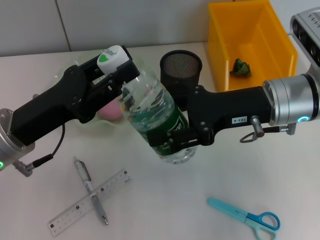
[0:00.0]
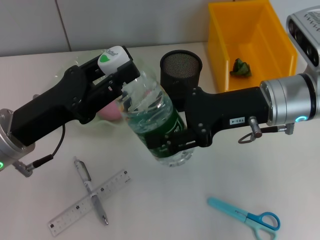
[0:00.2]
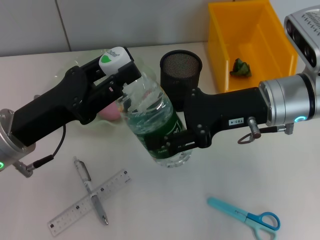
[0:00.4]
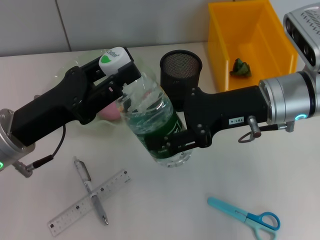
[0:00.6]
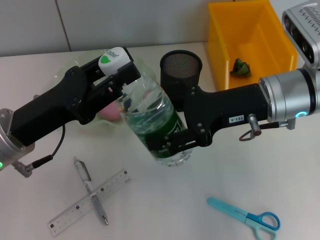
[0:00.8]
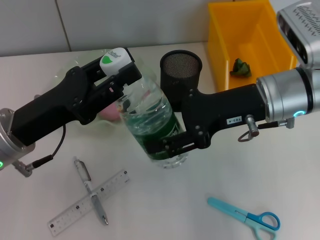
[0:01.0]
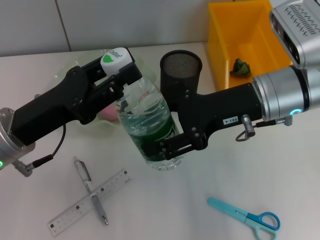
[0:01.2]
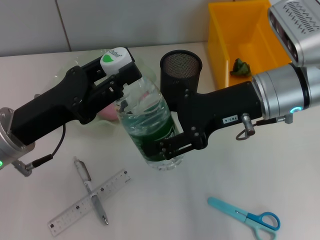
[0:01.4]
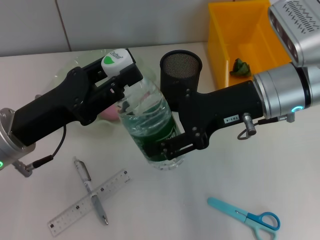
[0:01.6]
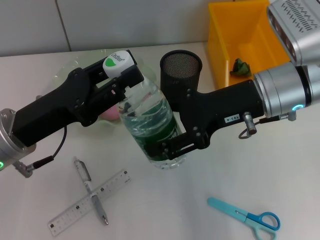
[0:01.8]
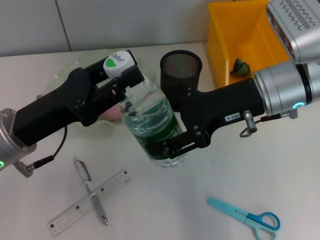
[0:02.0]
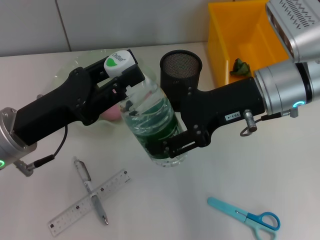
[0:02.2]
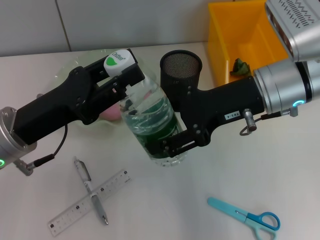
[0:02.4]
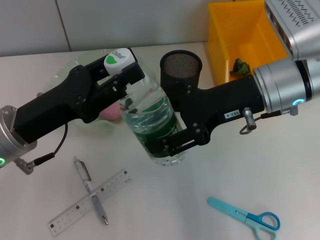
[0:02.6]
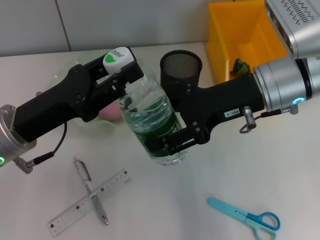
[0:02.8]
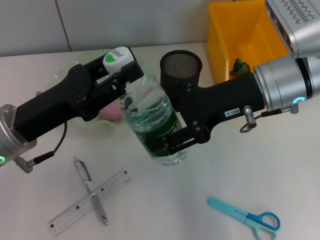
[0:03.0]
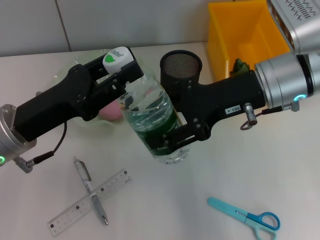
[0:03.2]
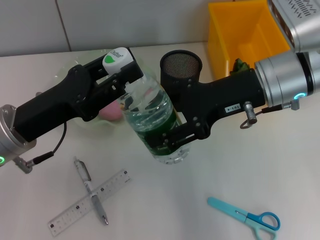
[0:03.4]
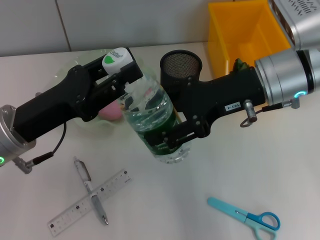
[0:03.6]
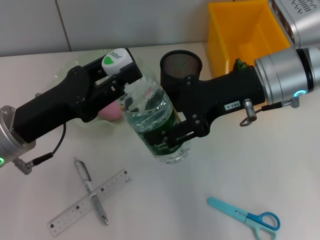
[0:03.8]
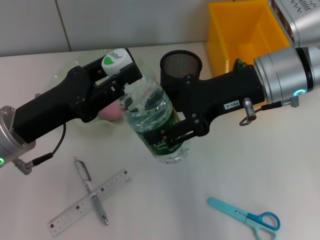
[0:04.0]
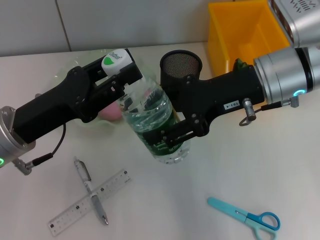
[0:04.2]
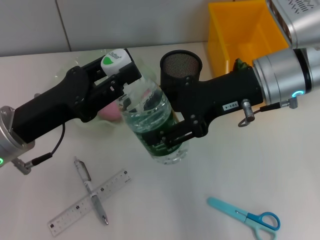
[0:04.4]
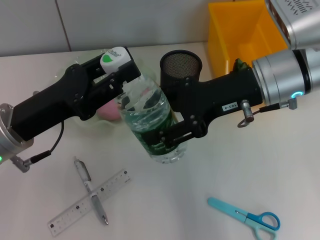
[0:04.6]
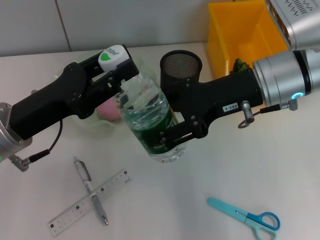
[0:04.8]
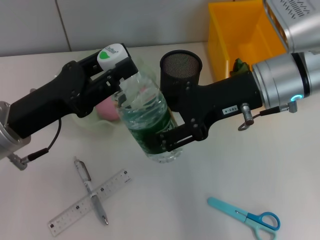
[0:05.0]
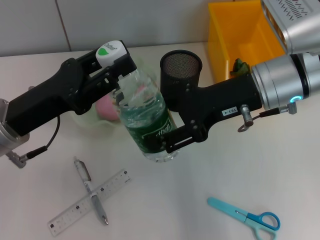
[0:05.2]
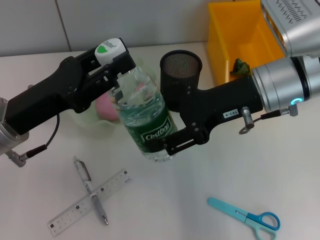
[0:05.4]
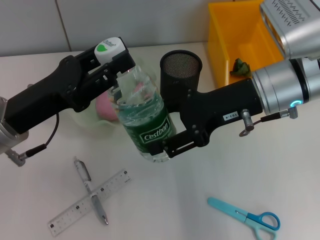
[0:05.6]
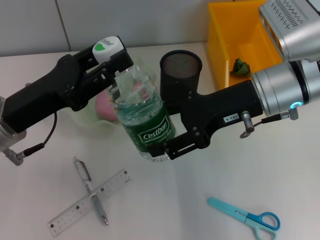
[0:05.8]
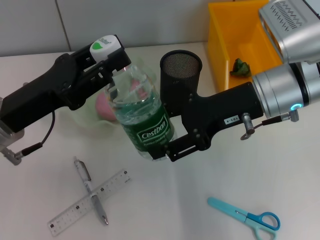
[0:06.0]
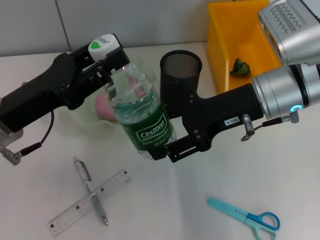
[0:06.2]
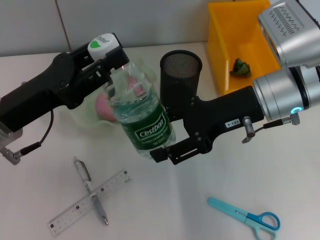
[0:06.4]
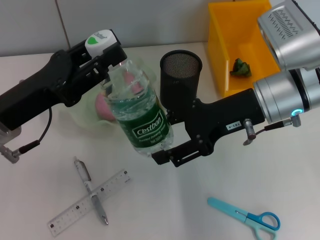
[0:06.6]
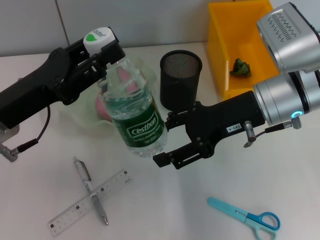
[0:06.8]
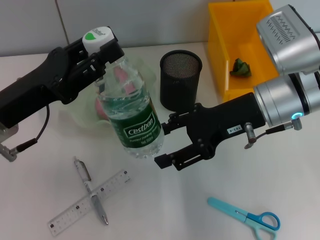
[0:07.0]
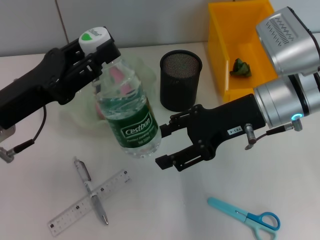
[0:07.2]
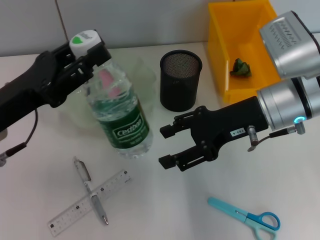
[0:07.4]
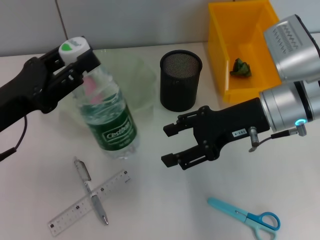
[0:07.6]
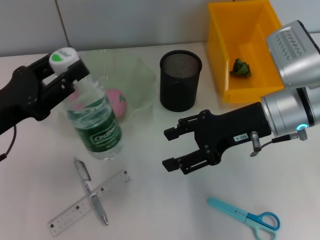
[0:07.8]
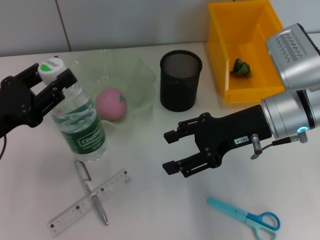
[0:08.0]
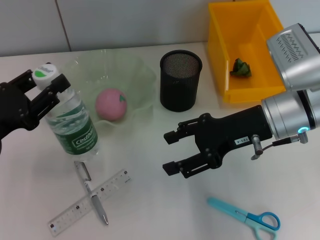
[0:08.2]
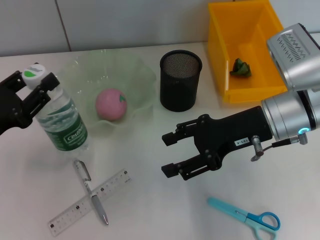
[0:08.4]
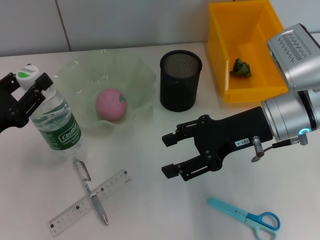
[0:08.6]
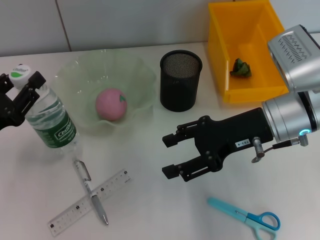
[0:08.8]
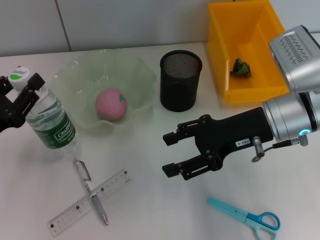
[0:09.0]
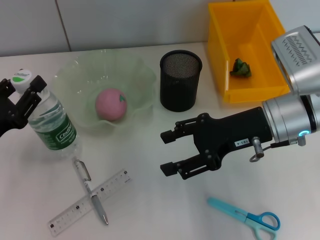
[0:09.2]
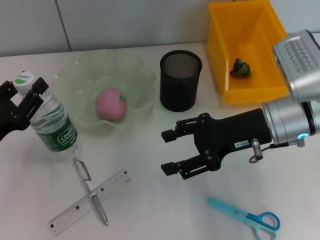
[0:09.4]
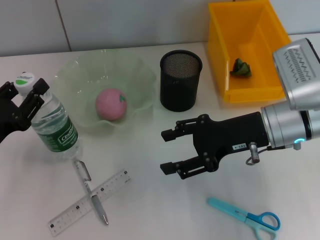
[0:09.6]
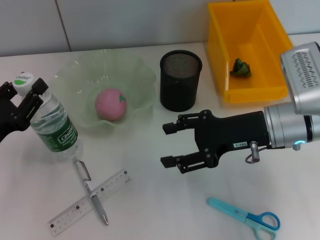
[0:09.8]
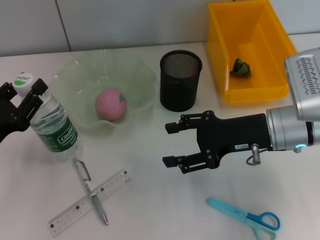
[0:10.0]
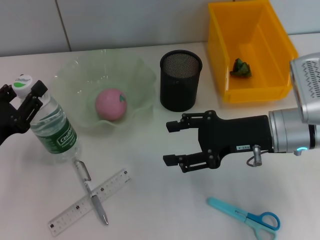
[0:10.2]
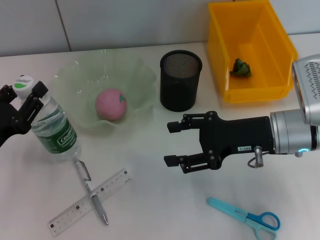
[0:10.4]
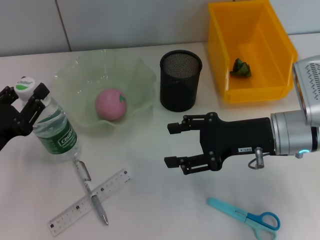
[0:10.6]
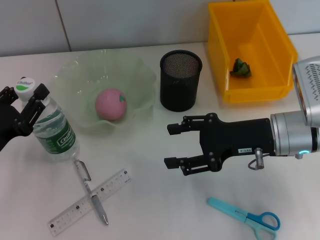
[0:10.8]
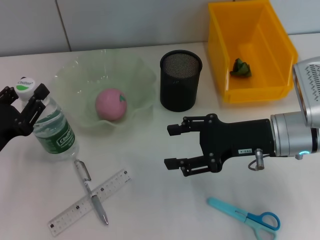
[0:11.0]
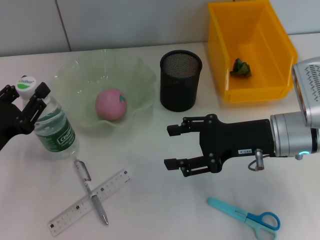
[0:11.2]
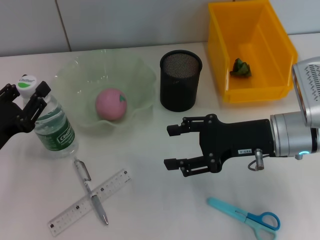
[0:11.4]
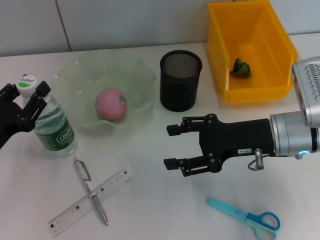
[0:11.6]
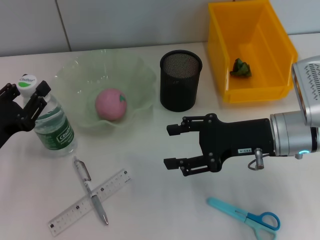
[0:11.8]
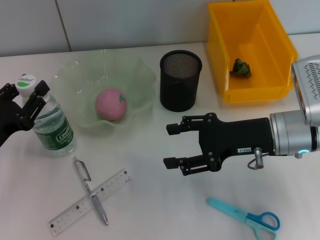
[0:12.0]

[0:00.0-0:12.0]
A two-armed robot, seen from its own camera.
Step, 0:00.0 to 0:07.0: Pass the water bottle from the right hand to the left hand.
0:00.0 to 0:01.6: The grippers make only small movements.
0:01.6 to 0:03.0: Neither gripper changes place.
0:03.0 to 0:04.4: Neither gripper changes place.
0:07.6 to 0:09.0: The left gripper heads downward, covering roughly 5 cm.
0:09.0 to 0:10.4: The grippers stay close to where they were, moving slightly.
0:10.4 to 0:12.0: Both grippers stay put.

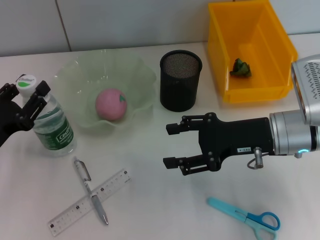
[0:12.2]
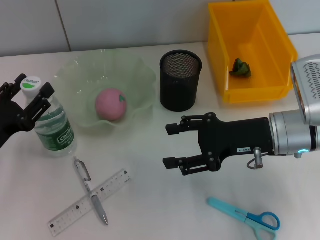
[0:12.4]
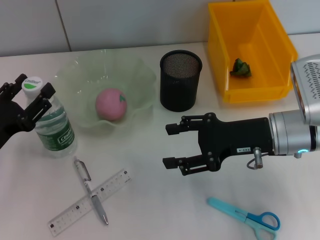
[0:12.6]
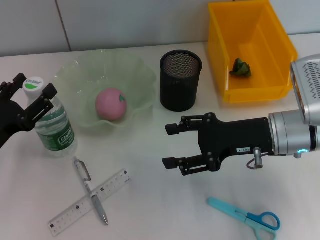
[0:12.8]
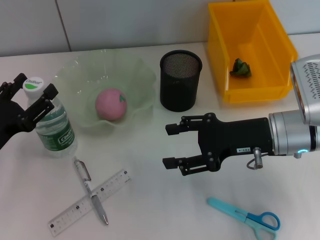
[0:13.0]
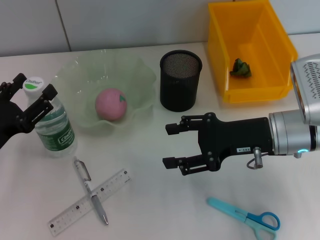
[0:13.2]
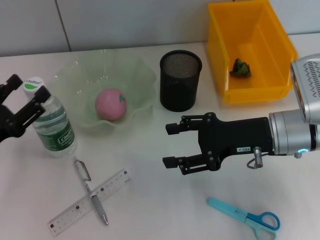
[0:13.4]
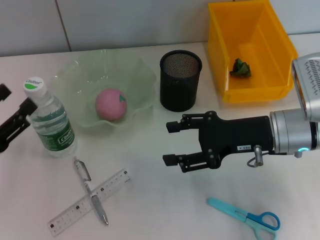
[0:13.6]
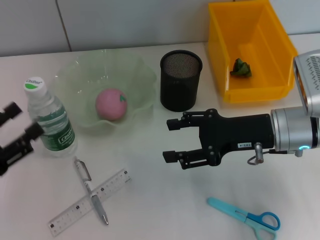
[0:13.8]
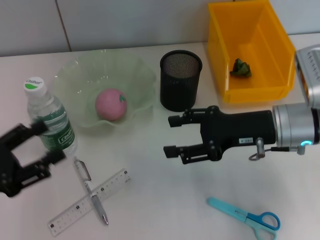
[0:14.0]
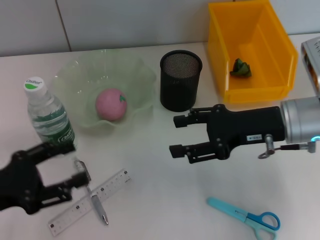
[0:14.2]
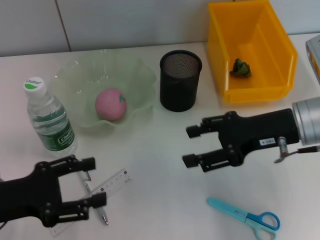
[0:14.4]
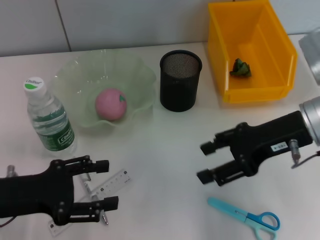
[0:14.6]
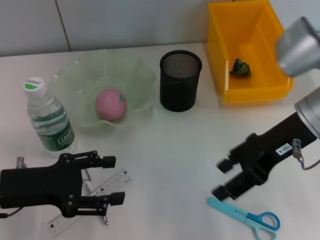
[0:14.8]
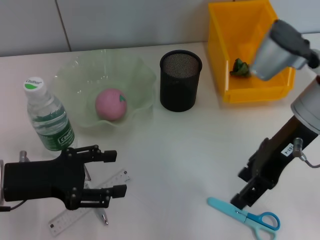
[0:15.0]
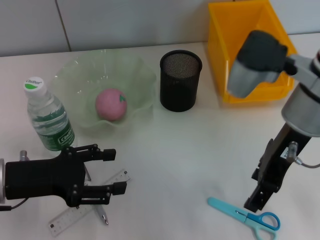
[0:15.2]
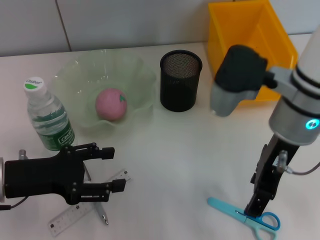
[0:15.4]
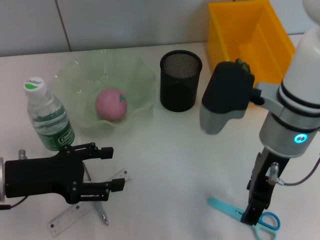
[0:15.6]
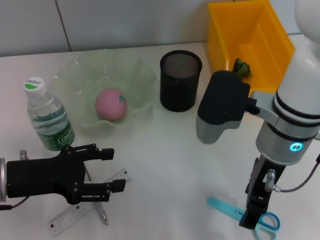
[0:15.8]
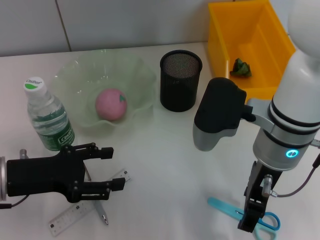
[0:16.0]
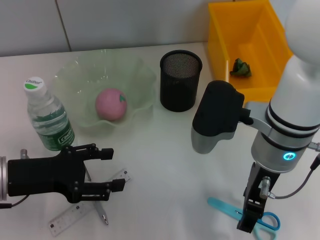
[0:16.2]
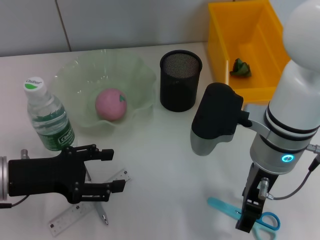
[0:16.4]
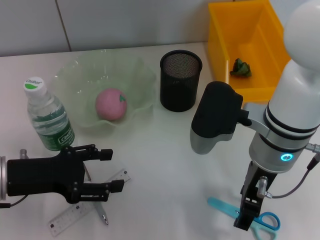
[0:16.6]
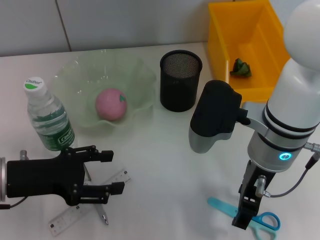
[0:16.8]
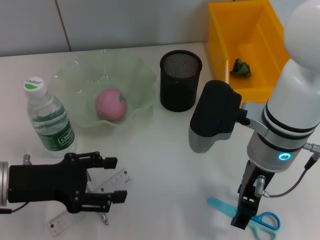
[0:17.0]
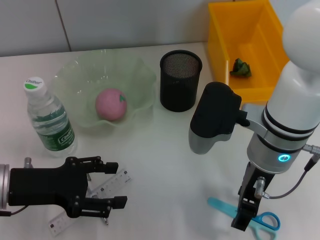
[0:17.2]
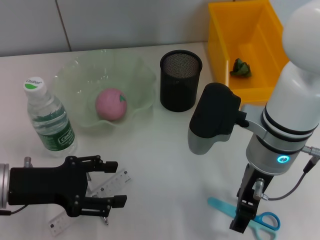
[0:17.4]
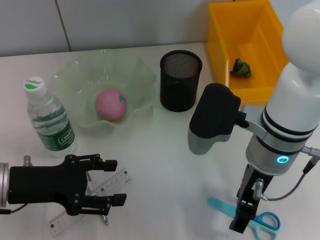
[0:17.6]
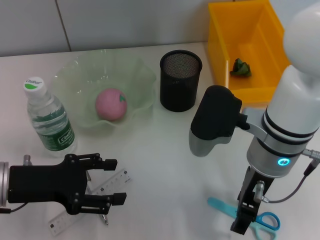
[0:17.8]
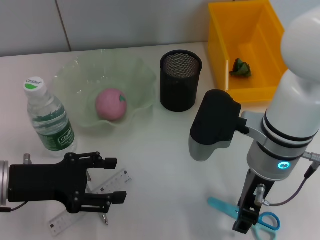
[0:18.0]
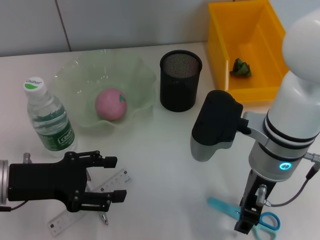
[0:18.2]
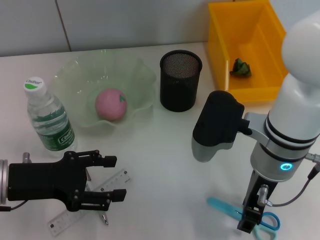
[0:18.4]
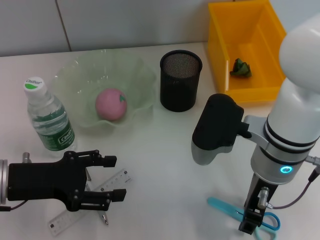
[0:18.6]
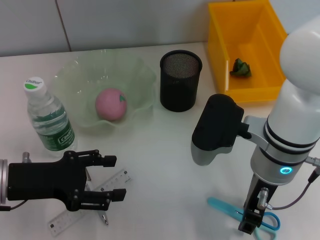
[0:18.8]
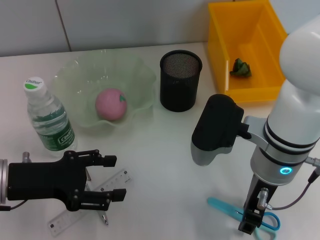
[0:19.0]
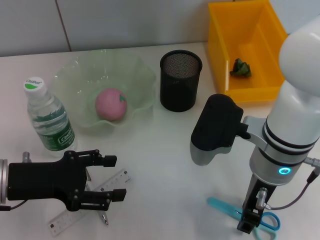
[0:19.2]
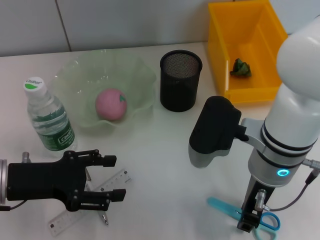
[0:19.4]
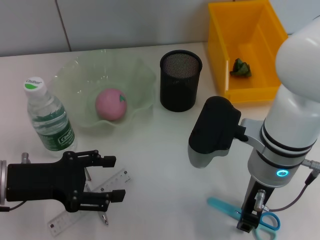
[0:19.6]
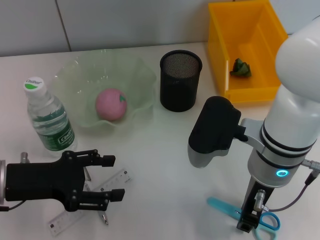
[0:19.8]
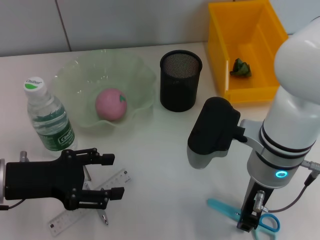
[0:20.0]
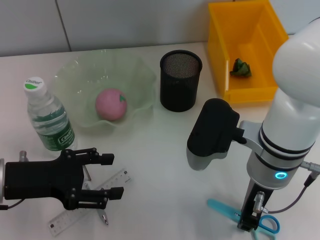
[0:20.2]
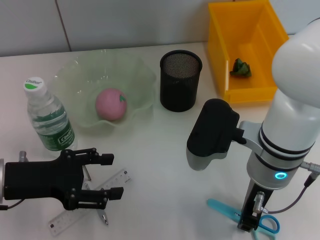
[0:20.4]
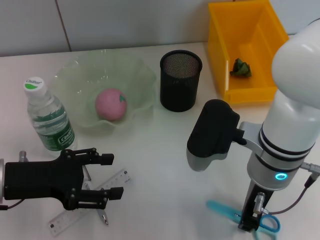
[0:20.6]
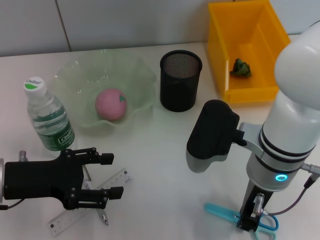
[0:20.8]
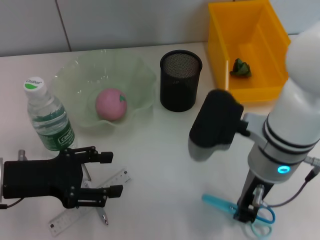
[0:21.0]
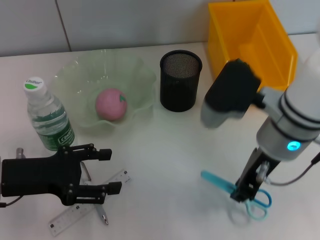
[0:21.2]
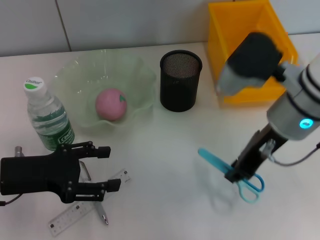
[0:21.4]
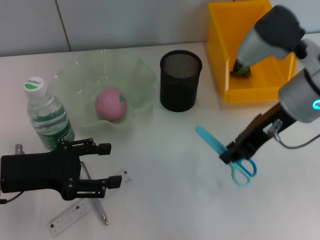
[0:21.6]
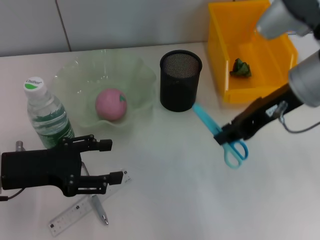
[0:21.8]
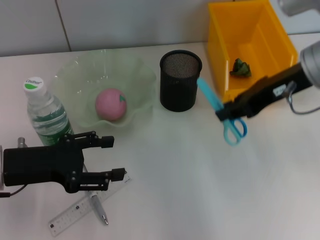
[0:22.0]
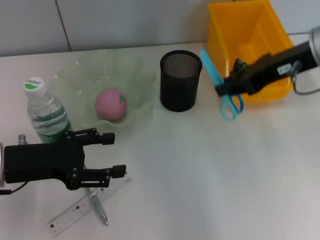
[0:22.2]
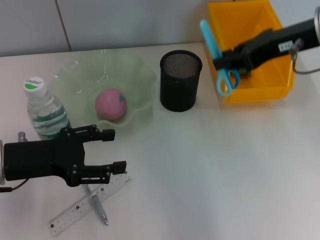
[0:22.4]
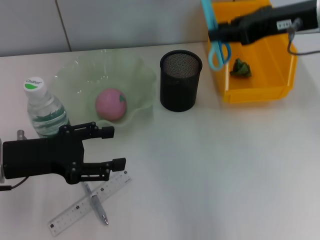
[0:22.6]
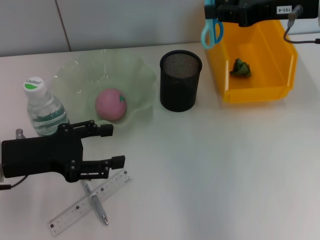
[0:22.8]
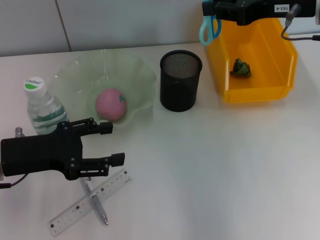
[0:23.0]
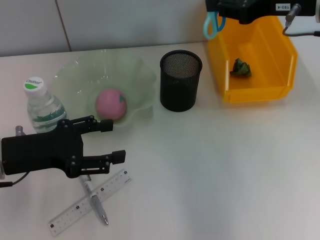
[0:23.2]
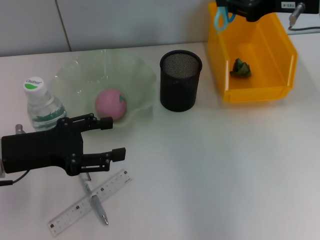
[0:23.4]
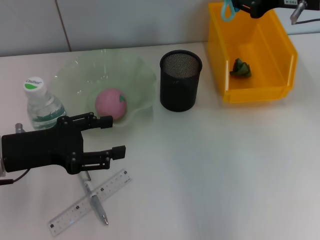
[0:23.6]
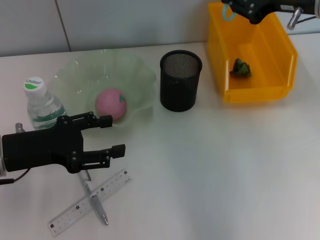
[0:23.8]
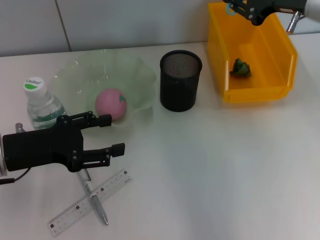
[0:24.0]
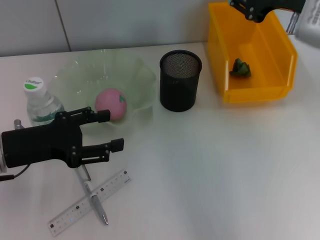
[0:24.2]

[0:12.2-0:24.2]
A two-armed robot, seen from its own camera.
Step, 0:13.0 to 0:20.4: Grab the blue utility knife with the right hand.
0:12.2 to 0:13.8: The left gripper heads backward, covering about 5 cm, and opens its fingers.
0:13.8 to 0:15.2: The left gripper is displaced to the right and forward by some 10 cm. The right gripper goes about 10 cm upward.
0:15.2 to 0:16.6: The right gripper changes place by about 5 cm.
0:16.6 to 0:18.2: Neither gripper changes place.
0:18.2 to 0:19.8: Both grippers stay put.
0:21.2 to 0:22.6: The right gripper goes about 15 cm to the right, upward and forward.
